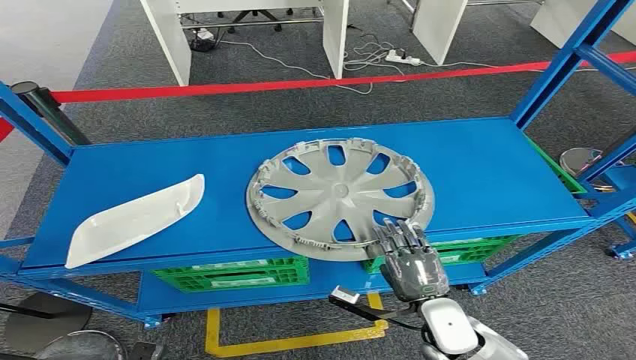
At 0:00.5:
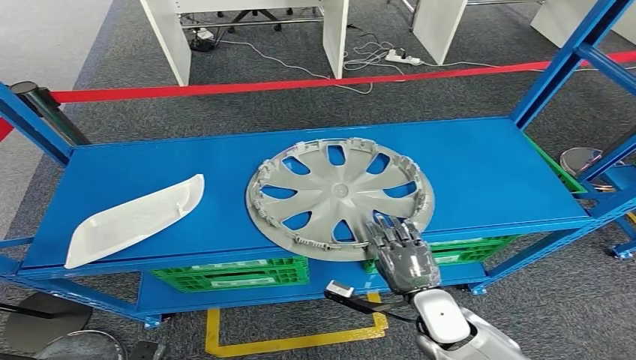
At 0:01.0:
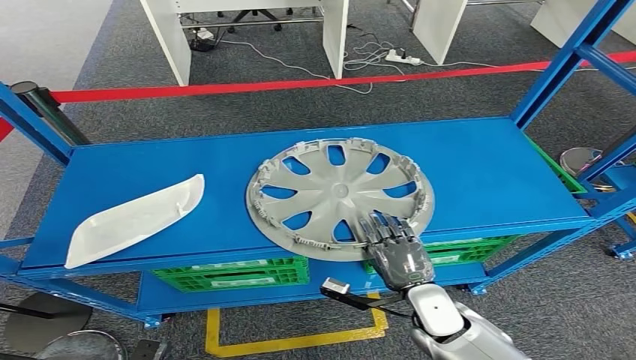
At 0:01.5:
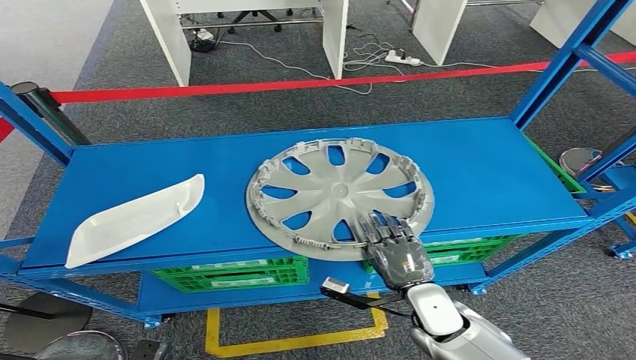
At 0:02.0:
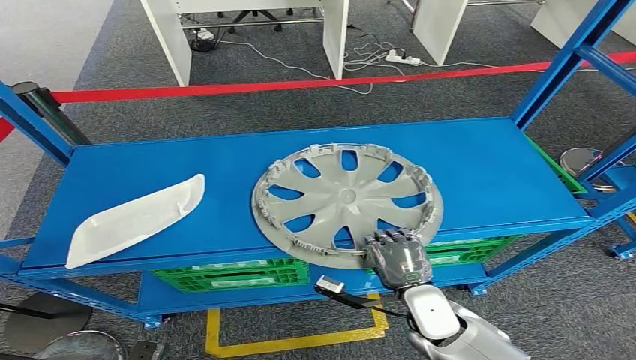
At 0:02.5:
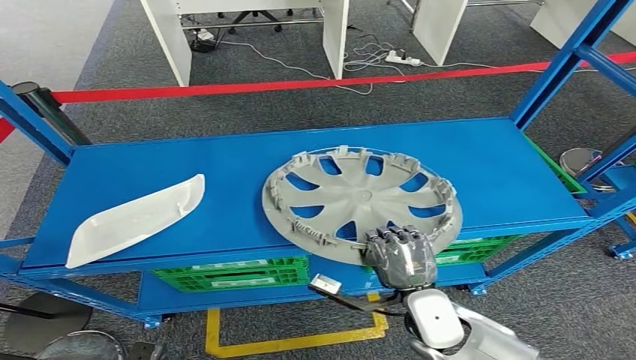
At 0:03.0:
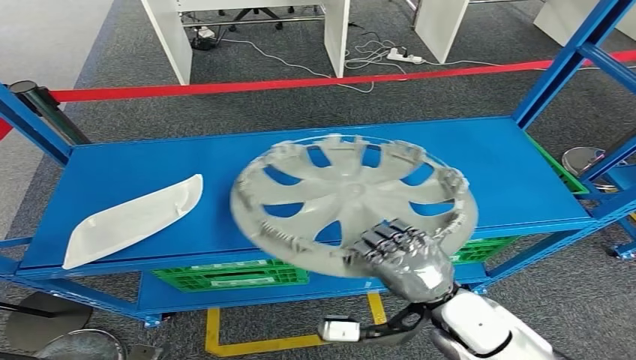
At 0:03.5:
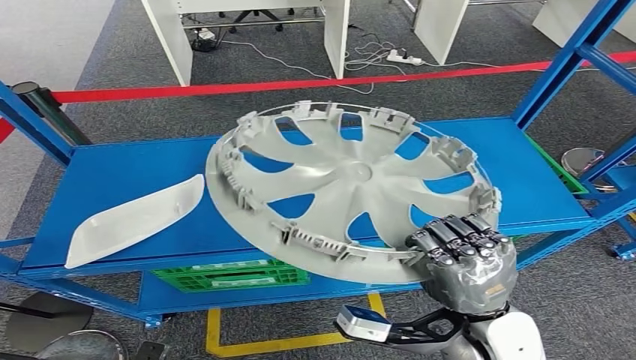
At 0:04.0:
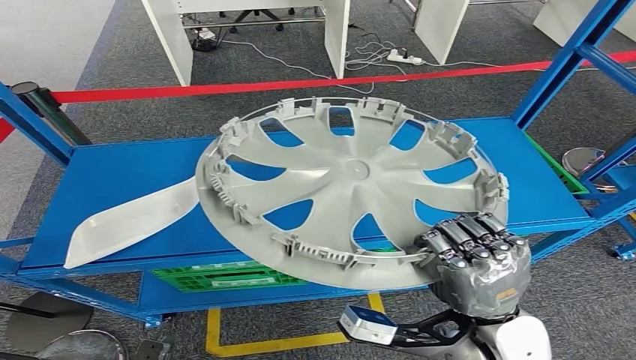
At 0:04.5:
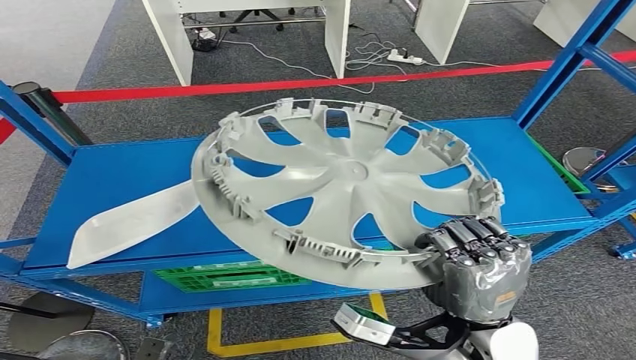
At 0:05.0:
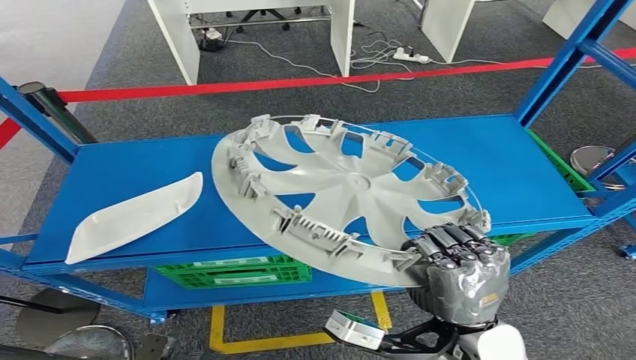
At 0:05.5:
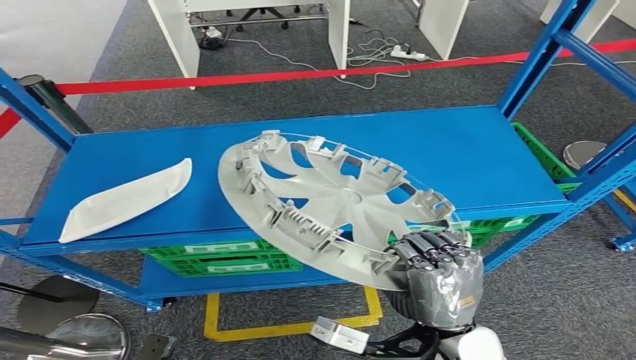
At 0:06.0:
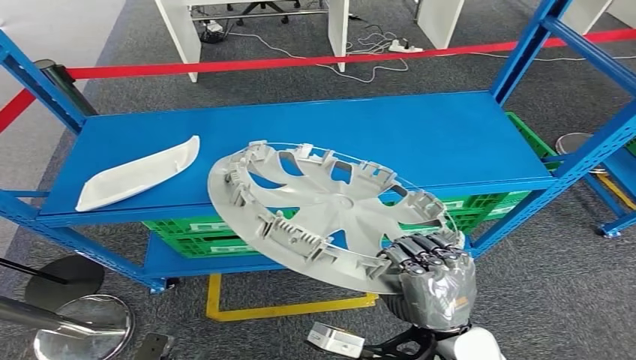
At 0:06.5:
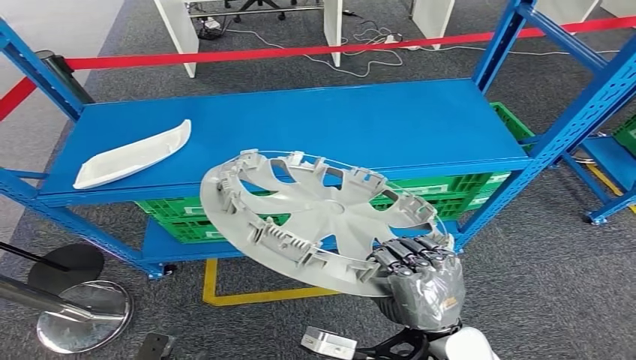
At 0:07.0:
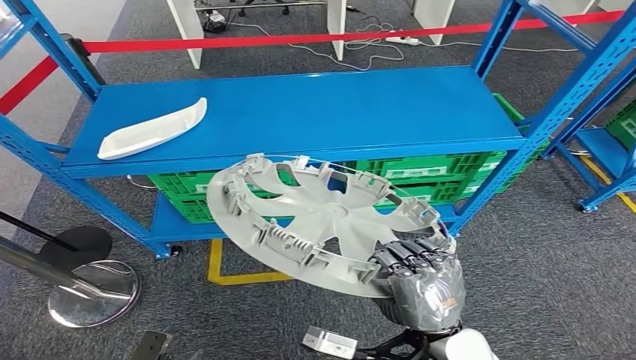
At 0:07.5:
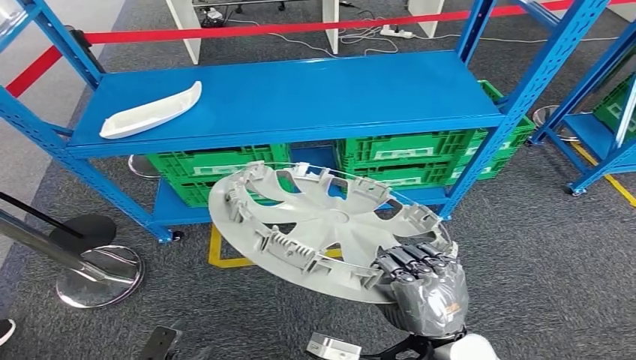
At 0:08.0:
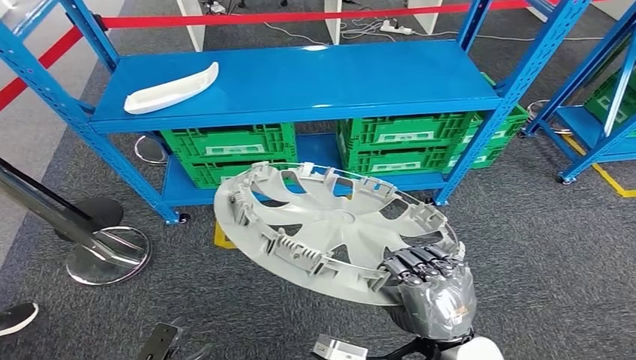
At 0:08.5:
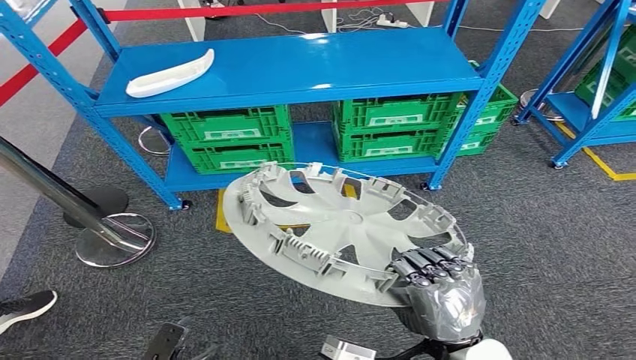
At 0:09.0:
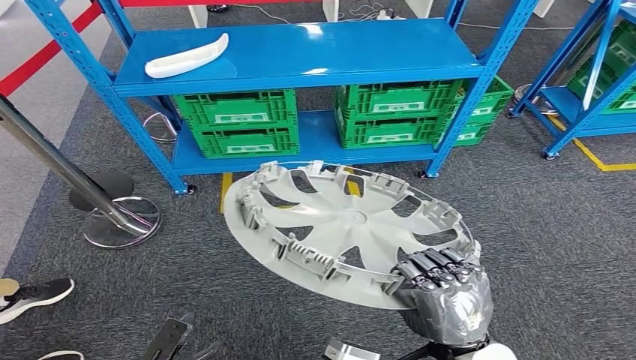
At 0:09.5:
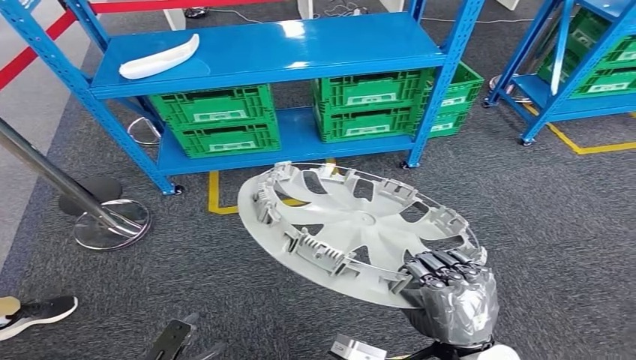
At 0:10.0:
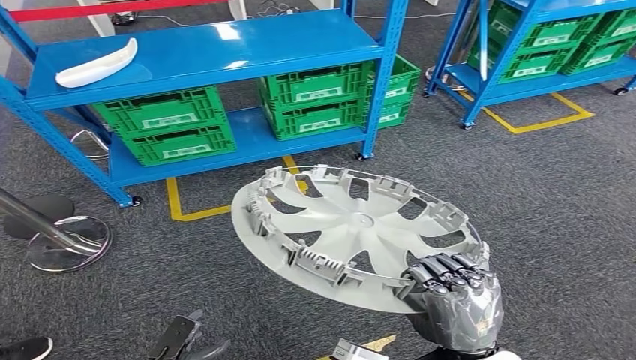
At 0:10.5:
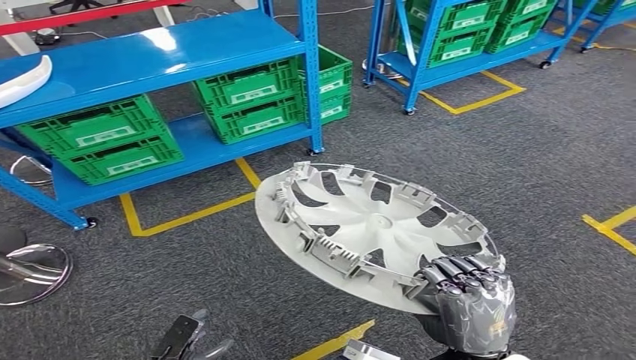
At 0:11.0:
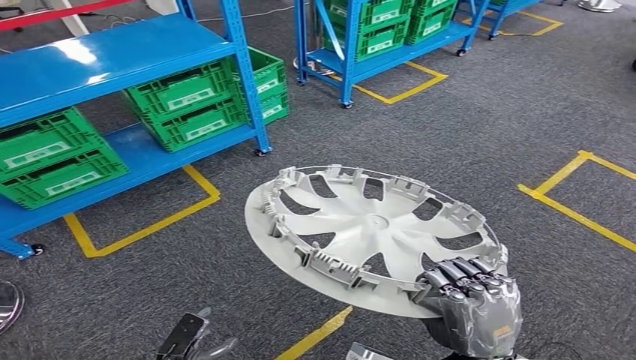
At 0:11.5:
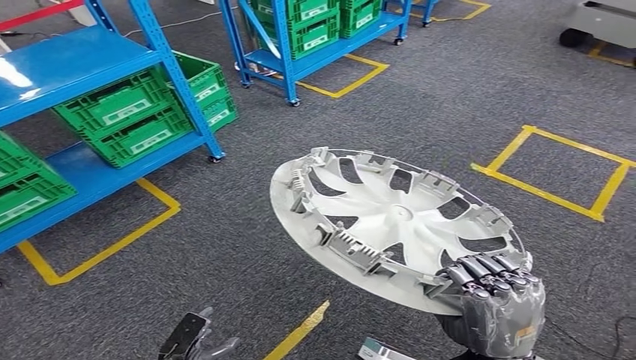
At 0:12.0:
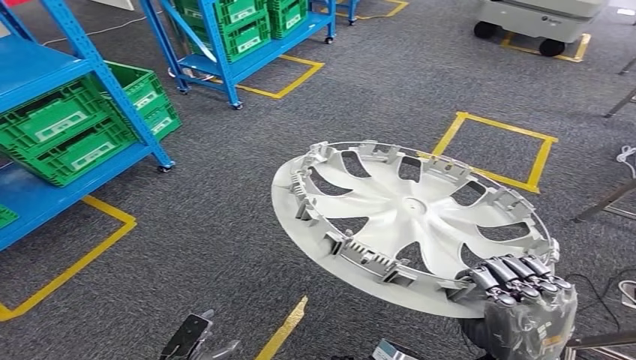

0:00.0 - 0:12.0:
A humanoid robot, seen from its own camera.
Step, 0:00.0 - 0:04.5: Pick up the small component from the shelf.

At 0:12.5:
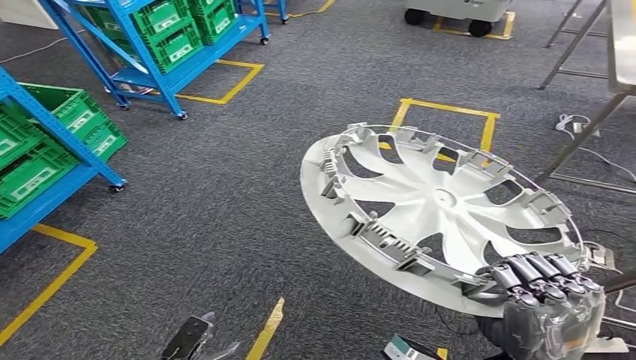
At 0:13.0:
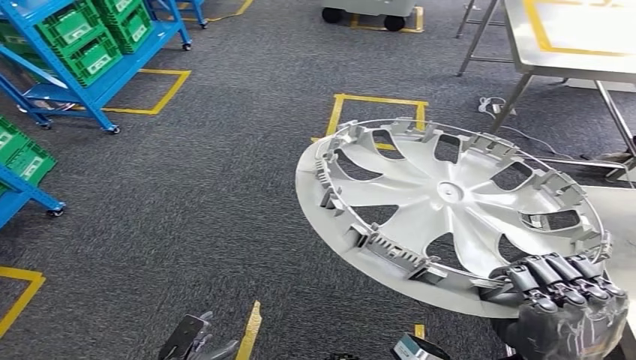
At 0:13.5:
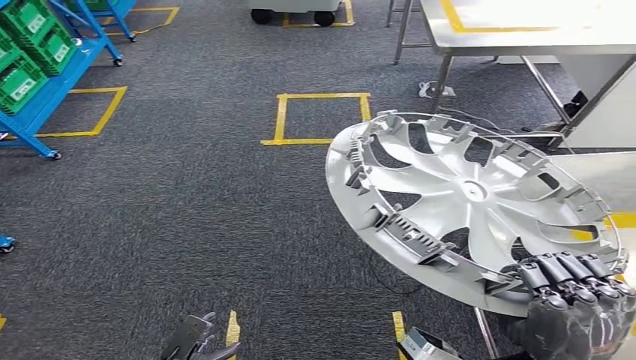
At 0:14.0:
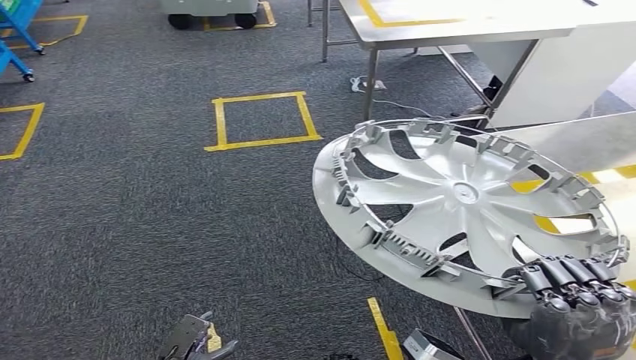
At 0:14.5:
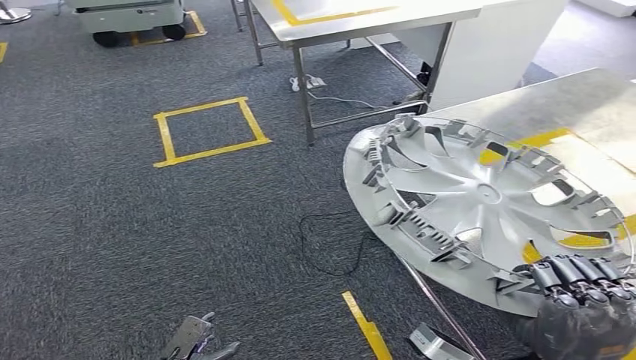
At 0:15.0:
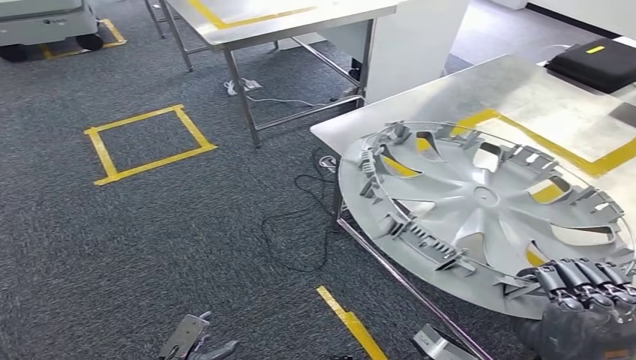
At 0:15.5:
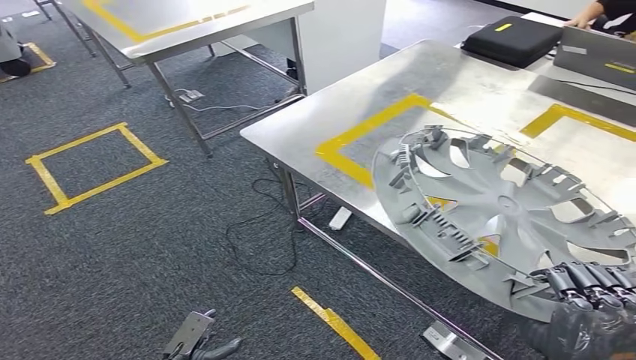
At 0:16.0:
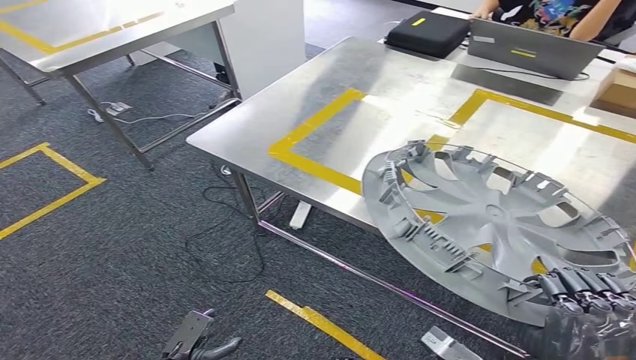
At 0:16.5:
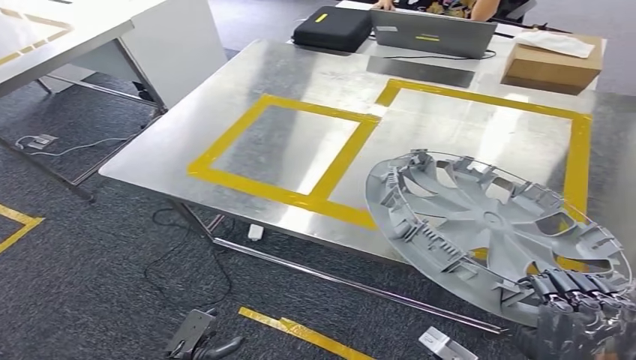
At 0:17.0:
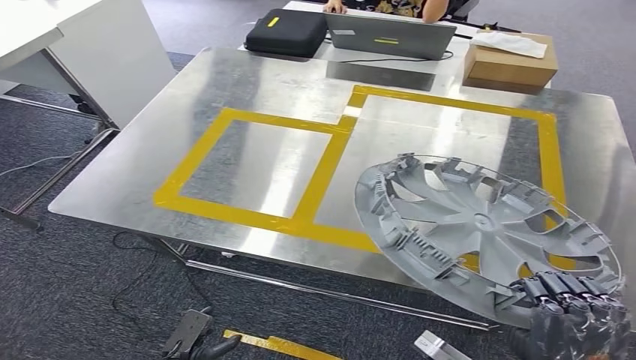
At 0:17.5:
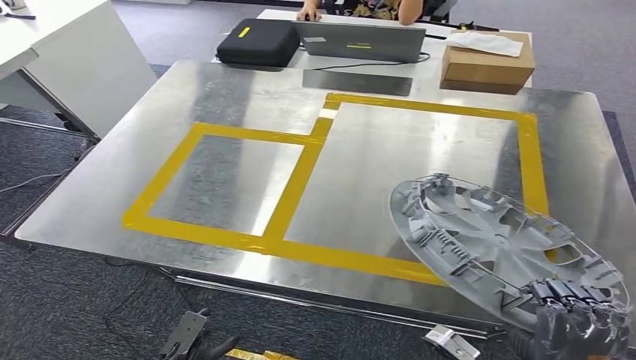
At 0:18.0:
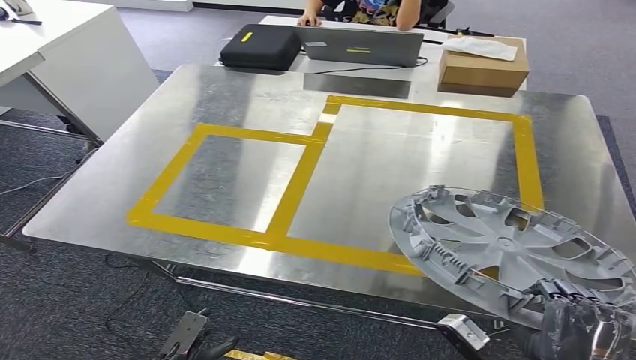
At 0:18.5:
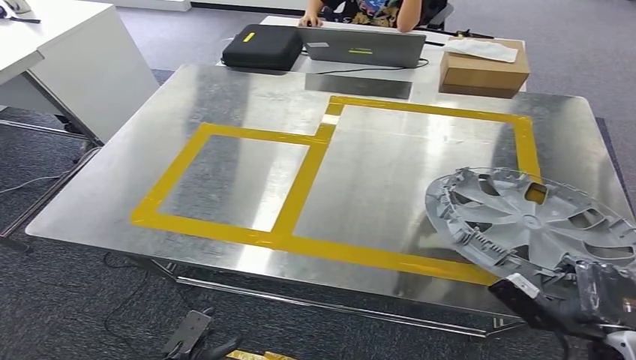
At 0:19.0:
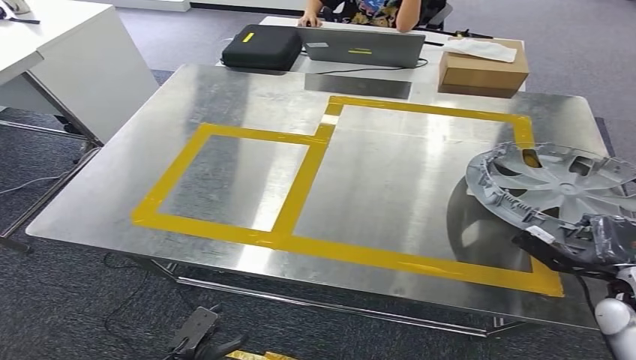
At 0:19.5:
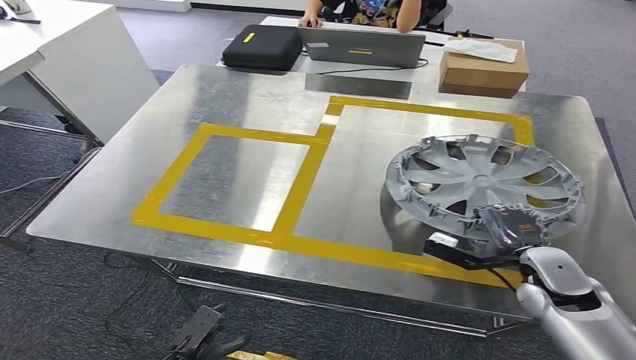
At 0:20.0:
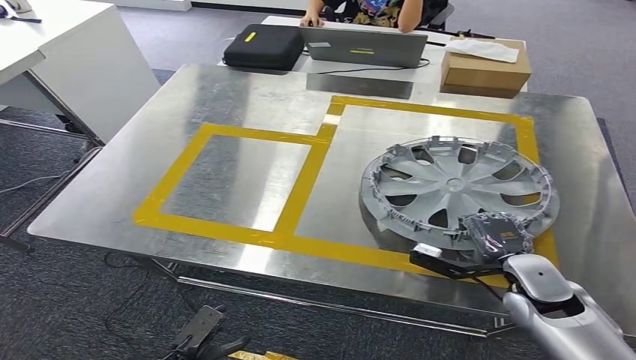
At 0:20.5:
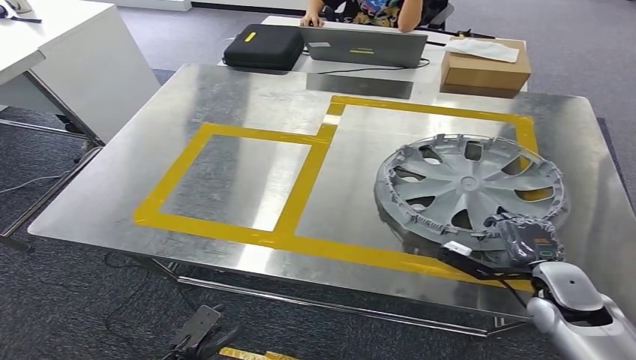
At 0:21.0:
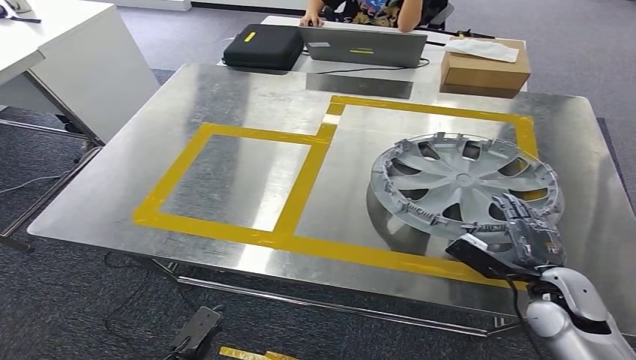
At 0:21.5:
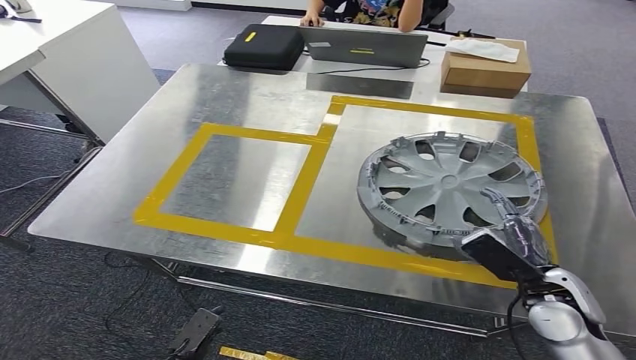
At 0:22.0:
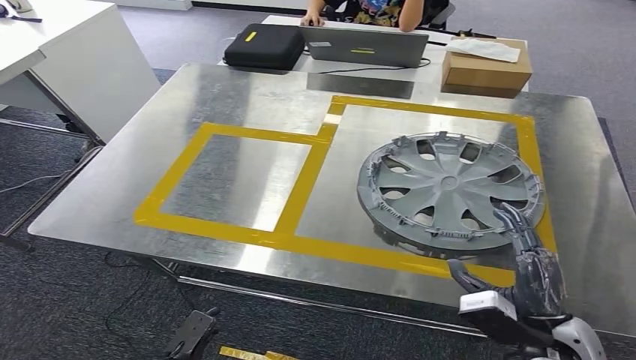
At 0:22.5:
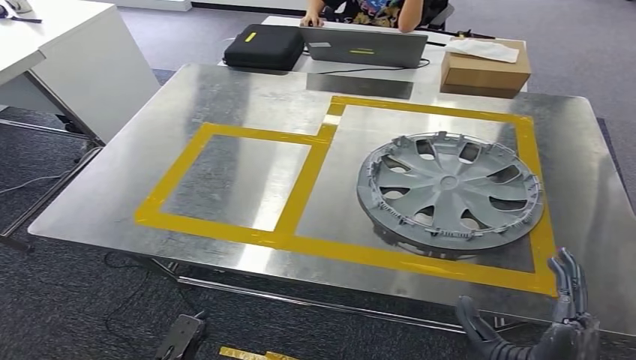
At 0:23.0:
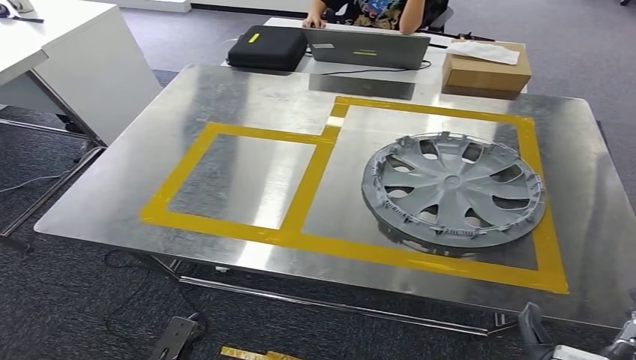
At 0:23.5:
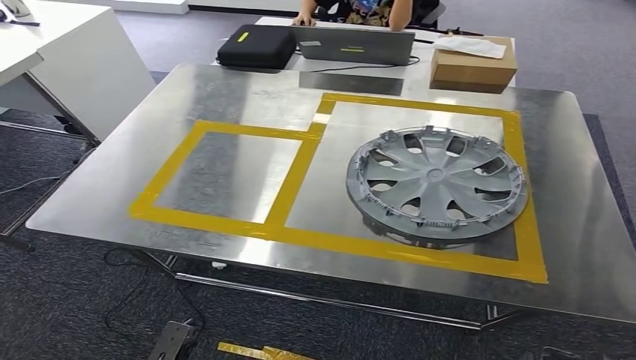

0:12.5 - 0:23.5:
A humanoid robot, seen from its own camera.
Step, 0:12.5 - 0:17.5: Move the small component to the workbench.
0:18.0 - 0:20.0: The right hand shifts approximately 20 cm forward.
